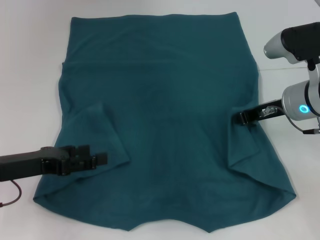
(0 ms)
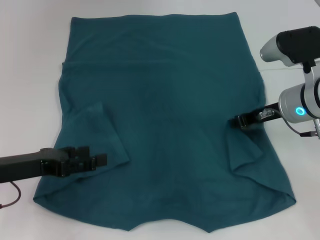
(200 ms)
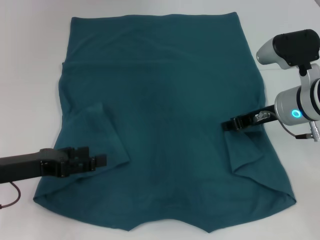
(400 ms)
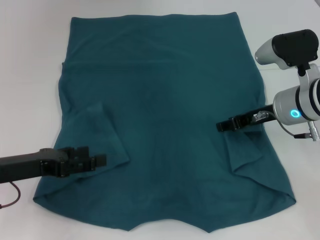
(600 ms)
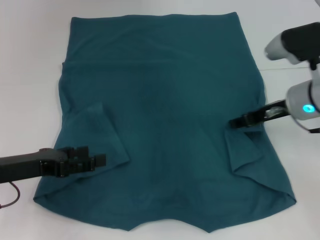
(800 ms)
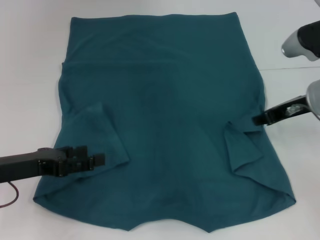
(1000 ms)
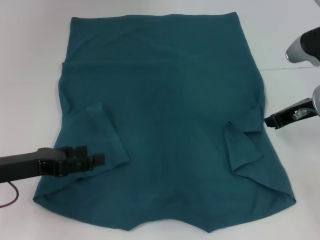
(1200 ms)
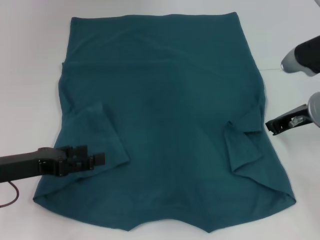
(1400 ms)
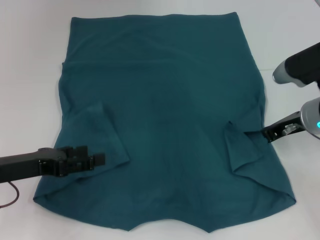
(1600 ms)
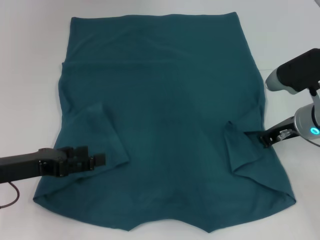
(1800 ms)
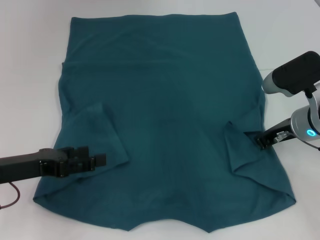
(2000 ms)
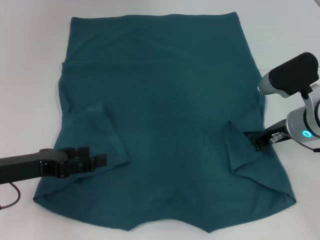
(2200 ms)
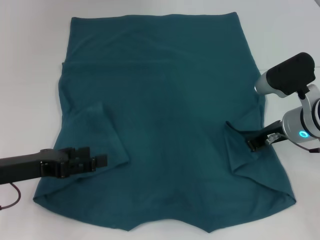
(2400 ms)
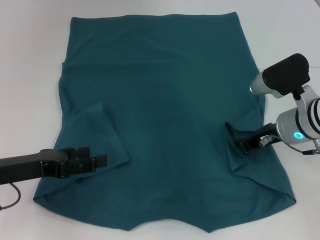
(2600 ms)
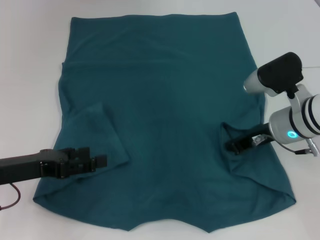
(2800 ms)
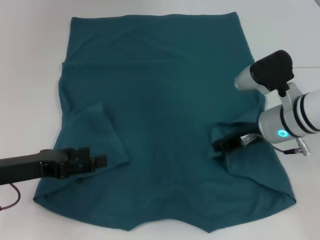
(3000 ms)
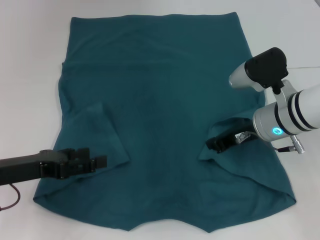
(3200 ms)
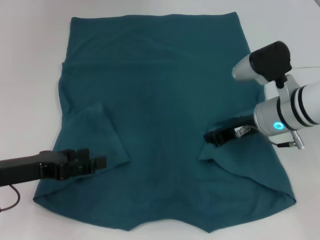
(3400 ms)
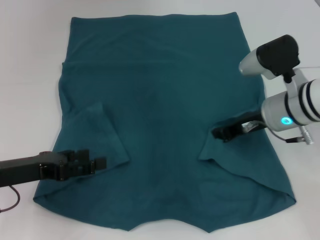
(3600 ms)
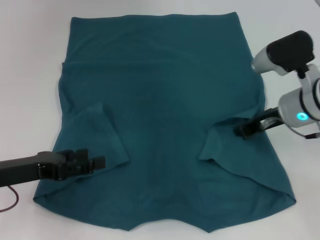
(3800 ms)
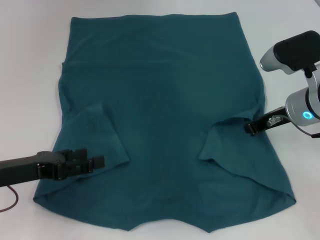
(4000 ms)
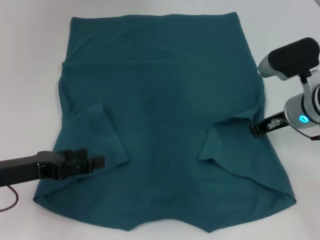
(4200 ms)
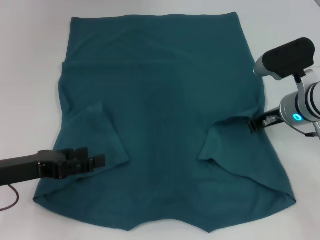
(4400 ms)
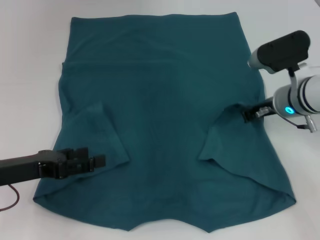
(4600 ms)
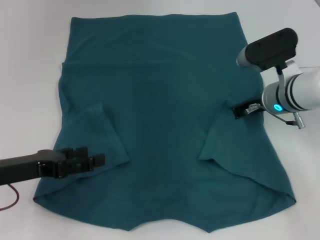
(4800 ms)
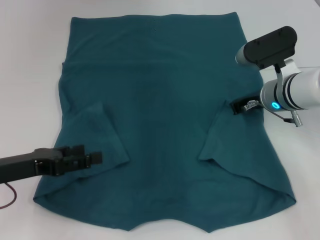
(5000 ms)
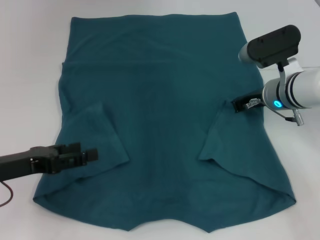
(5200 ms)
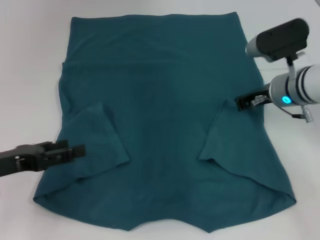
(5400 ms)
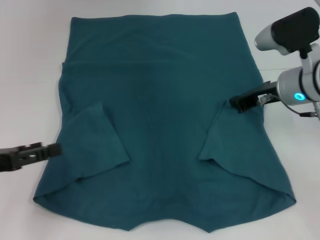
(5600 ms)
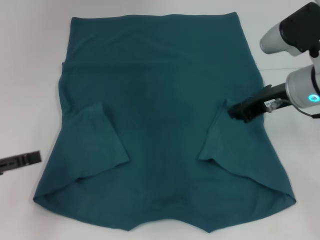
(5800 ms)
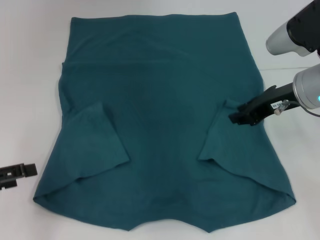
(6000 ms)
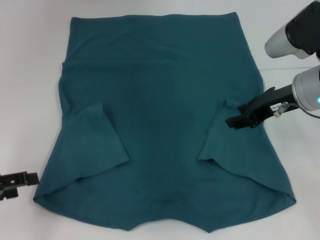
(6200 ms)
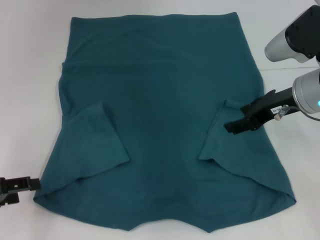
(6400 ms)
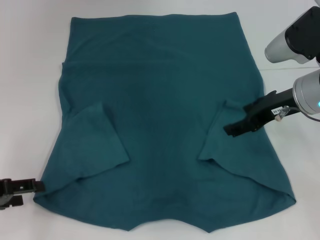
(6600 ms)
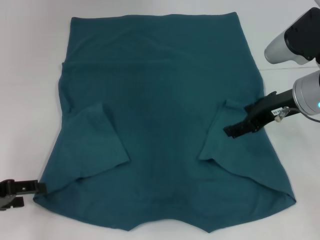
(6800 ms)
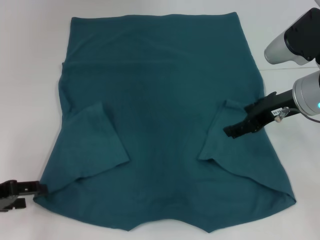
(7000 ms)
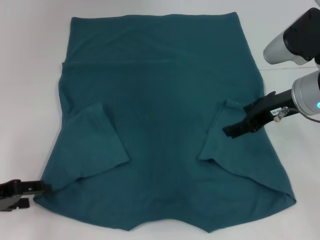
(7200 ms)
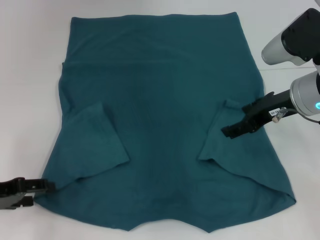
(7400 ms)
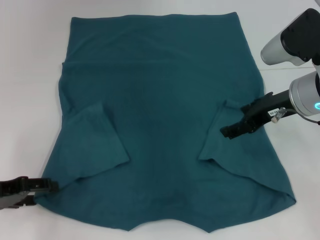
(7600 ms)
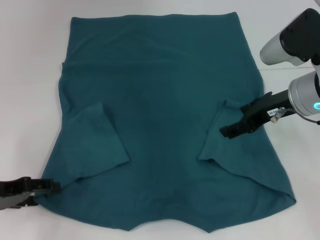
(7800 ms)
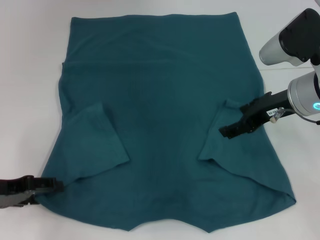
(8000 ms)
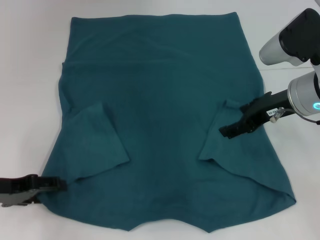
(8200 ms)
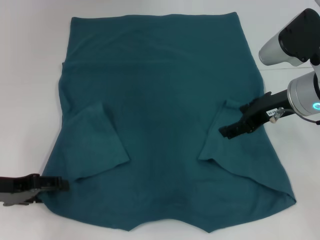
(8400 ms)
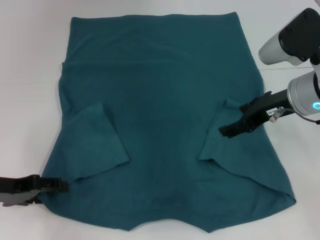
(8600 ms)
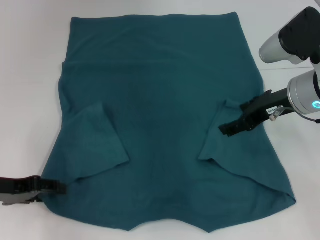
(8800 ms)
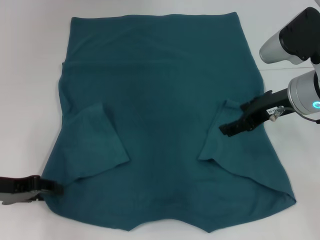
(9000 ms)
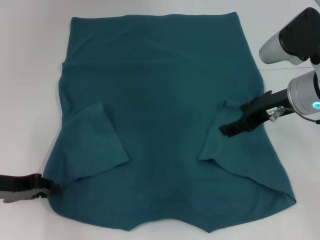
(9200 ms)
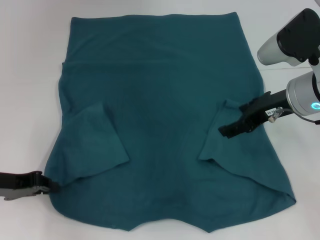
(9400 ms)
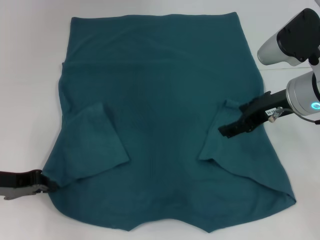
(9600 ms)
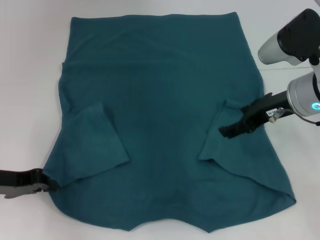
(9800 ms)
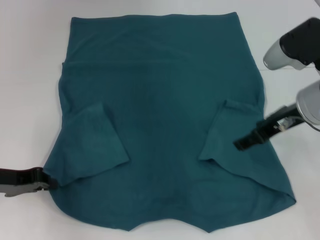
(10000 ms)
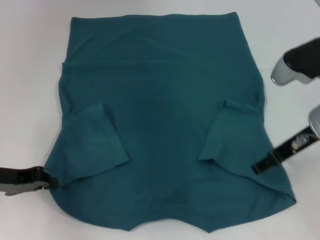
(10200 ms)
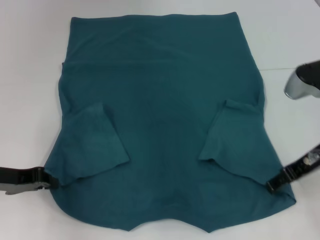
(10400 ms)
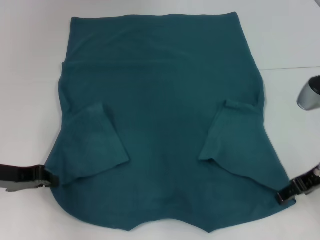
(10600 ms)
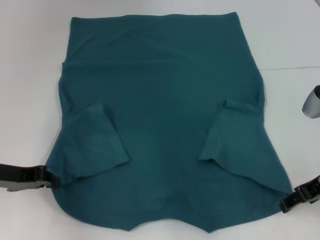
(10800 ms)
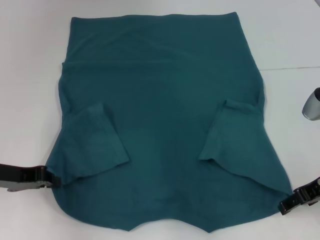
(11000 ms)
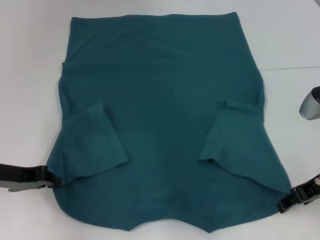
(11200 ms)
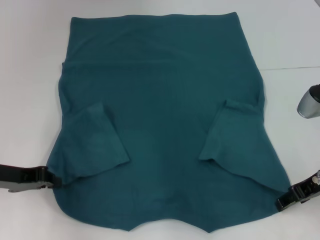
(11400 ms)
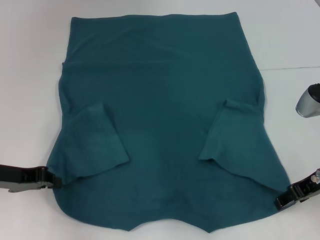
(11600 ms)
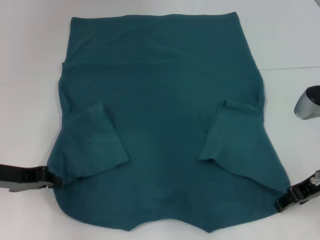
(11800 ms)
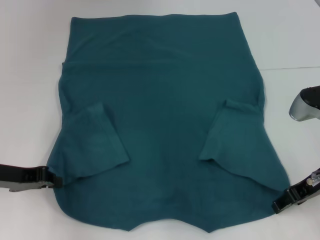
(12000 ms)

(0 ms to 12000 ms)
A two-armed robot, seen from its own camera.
Step, 0 ms - 5200 ms: Fold the bottom right sleeve to the right.
Step, 5400 ms - 9600 ms: Grab the bottom left corner with your left hand.
0 ms - 1600 ms: The right gripper opens and closes again.
1600 ms - 3000 ms: The right gripper goes about 5 cm to the left.
3000 ms - 4400 ms: The grippers make only small movements.
4400 ms - 6000 ms: The left gripper is displaced to the left by roughly 5 cm; the right gripper goes roughly 10 cm upward.
6000 ms - 7600 ms: The left gripper shifts by roughly 5 cm. Meanwhile the right gripper opens up.
7600 ms - 9000 ms: The grippers make only small movements.
9000 ms - 10400 ms: The right gripper changes place by some 5 cm, while the left gripper closes up.
10400 ms - 12000 ms: The grippers stay close to where they were, moving slightly.

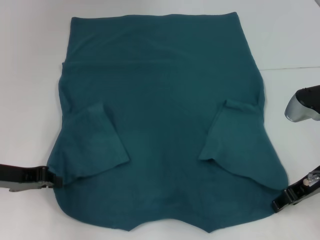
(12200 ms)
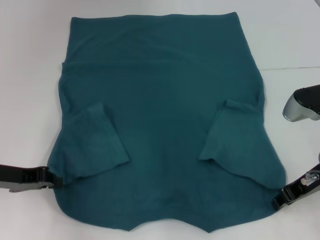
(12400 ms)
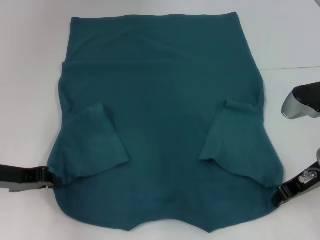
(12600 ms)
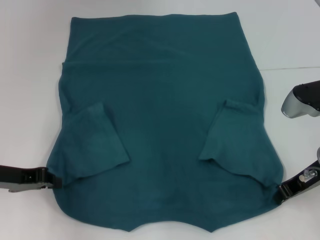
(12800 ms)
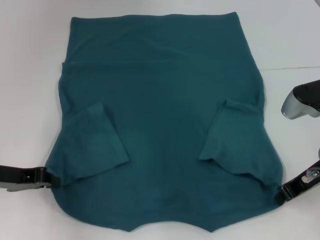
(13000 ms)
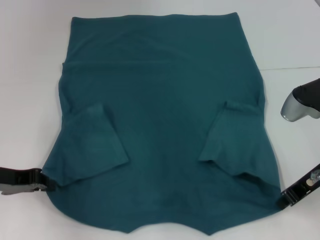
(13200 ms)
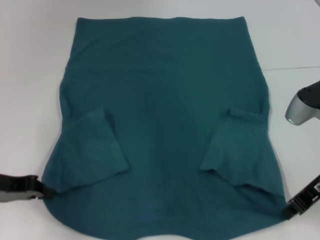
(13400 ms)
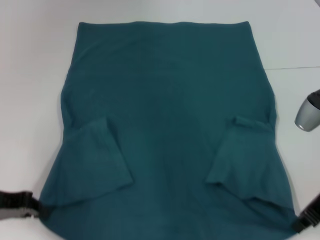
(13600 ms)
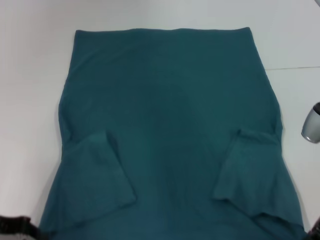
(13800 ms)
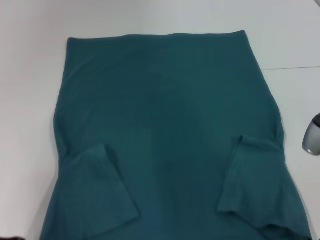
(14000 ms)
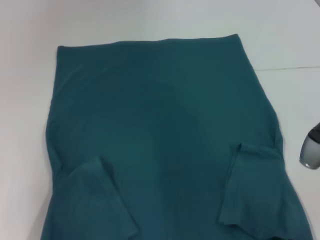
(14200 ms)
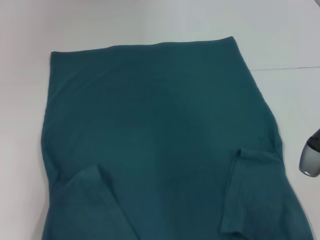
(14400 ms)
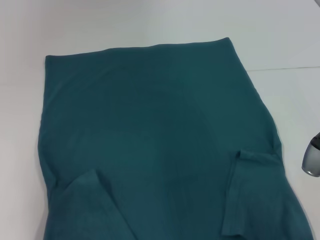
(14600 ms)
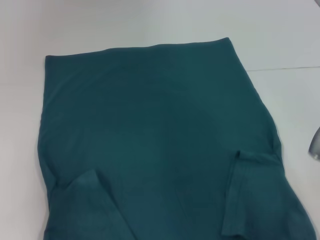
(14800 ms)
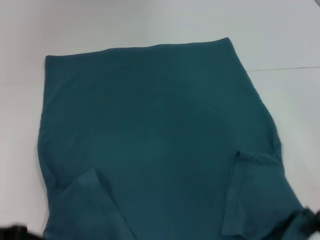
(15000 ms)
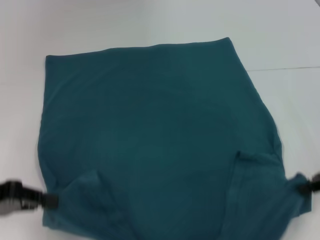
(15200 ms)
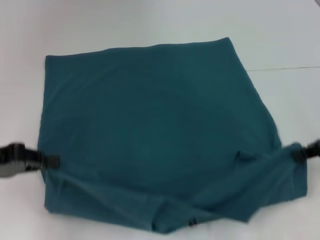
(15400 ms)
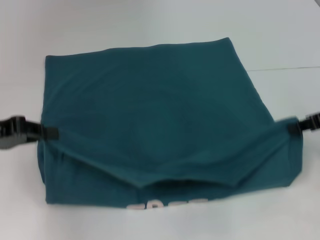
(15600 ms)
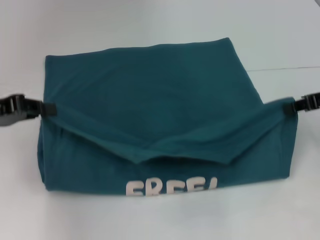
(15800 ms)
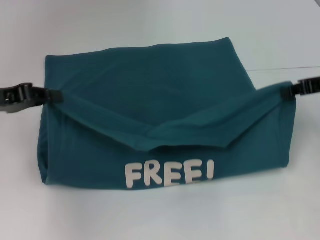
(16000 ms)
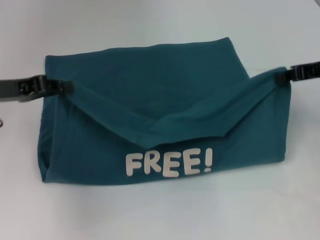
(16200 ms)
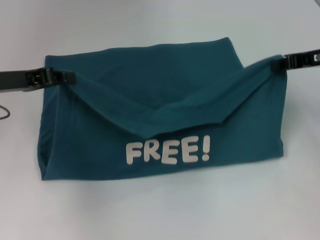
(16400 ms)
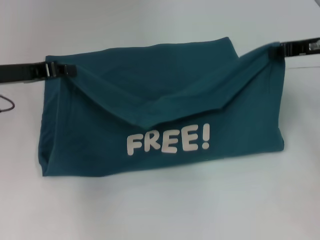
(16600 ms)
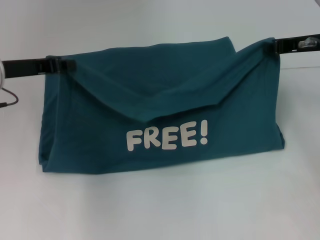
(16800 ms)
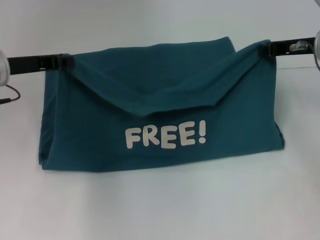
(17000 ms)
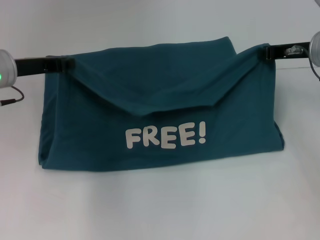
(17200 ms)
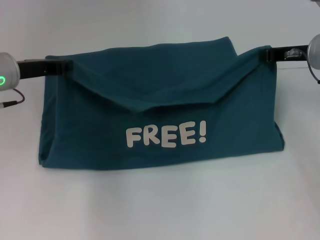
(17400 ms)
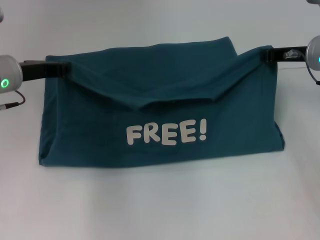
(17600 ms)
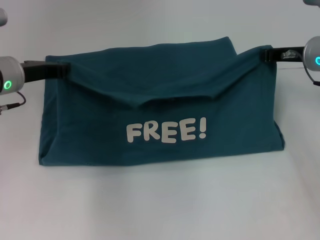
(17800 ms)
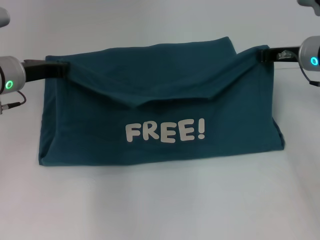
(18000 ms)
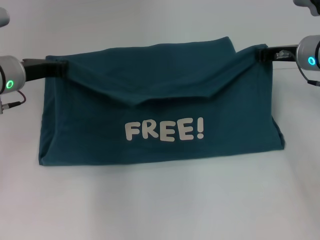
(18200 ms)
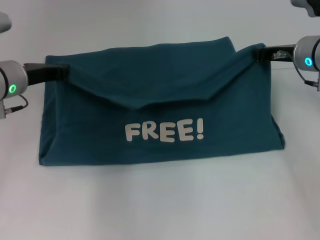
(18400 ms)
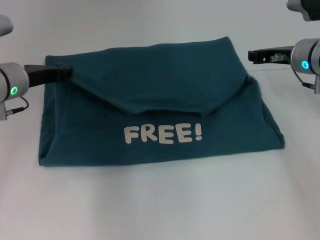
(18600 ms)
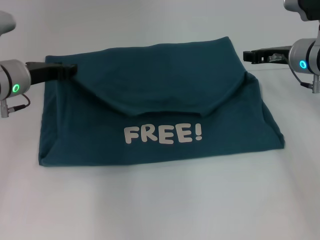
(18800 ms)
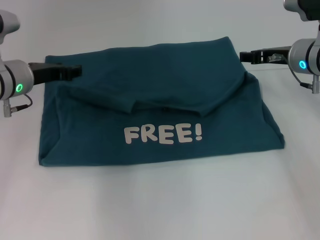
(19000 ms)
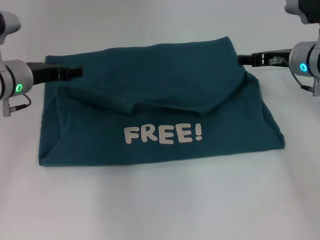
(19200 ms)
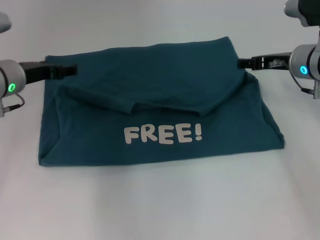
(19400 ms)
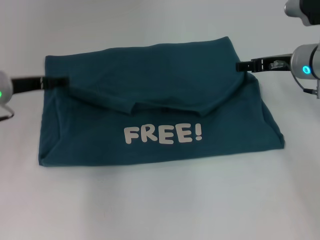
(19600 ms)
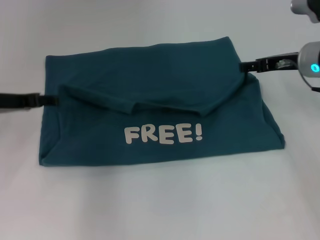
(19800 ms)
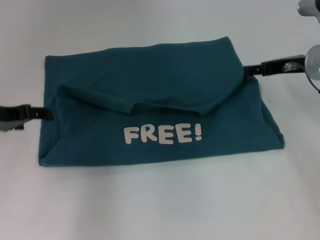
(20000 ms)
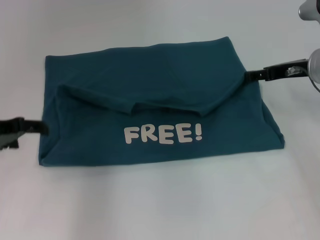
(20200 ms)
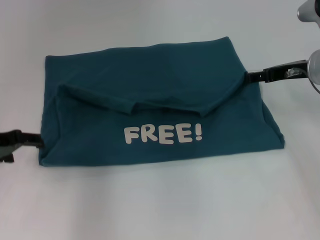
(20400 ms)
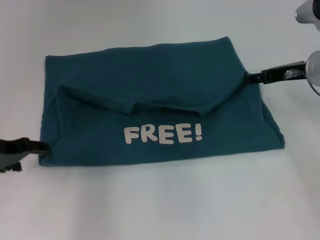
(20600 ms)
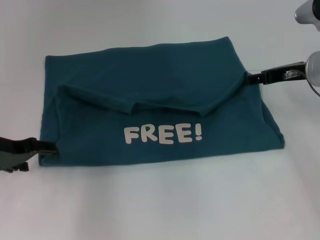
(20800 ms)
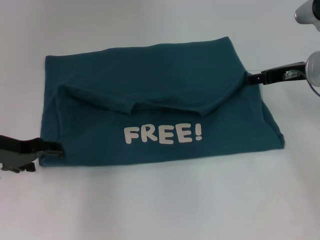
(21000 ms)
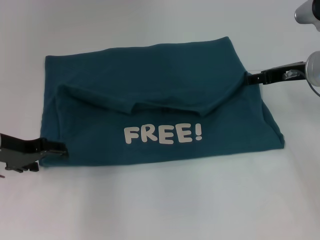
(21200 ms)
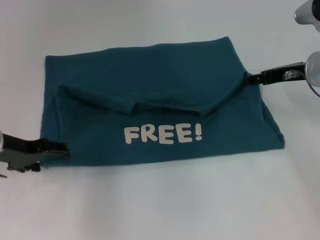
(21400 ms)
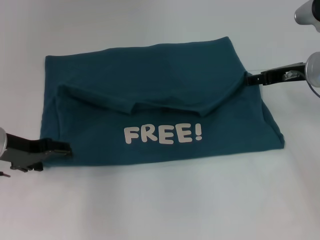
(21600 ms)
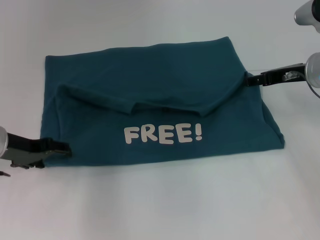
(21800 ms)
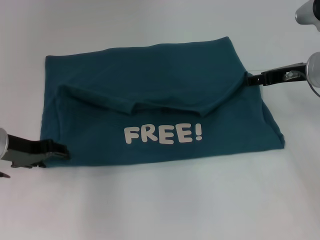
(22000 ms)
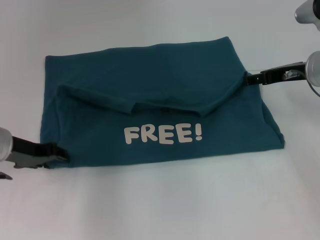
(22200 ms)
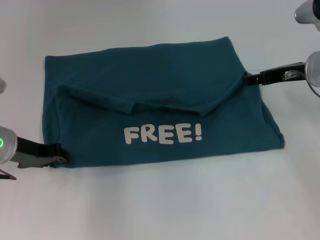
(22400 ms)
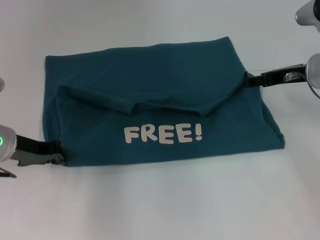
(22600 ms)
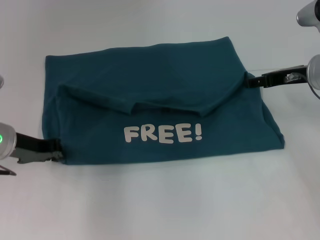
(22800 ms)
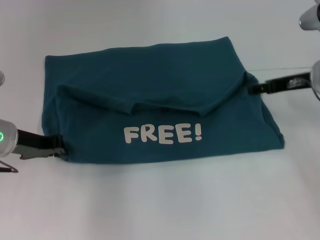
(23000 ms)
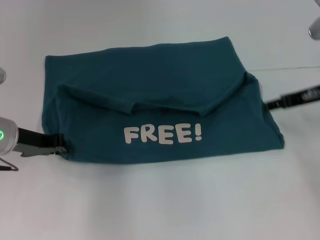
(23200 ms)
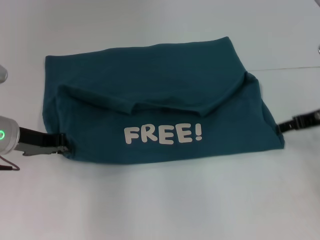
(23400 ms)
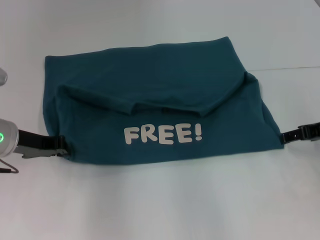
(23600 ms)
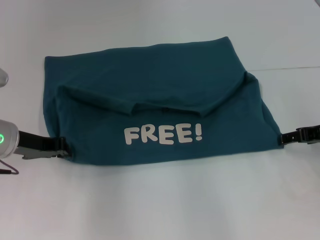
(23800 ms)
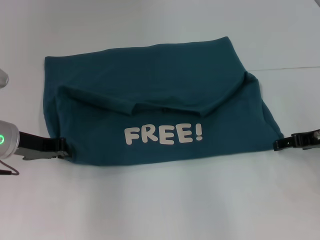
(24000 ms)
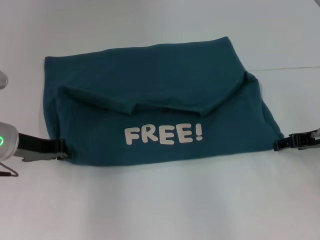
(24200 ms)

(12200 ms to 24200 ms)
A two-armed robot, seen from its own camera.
Step, 13000 ms - 19200 ms: Fold the clothes to the left.
Step, 13000 ms - 19200 ms: Fold the clothes to the right.
12200 ms - 13800 ms: The left gripper moves some 5 cm, while the right gripper closes up.
13800 ms - 15200 ms: The right gripper shifts approximately 5 cm to the right.
15200 ms - 16600 ms: Both grippers move forward, roughly 10 cm.
16600 ms - 18200 ms: The left gripper shifts by roughly 5 cm. Meanwhile the right gripper moves downward, approximately 5 cm.
18200 ms - 19800 ms: The left gripper moves approximately 5 cm, and opens its fingers. Meanwhile the right gripper opens up.
21200 ms - 22600 ms: The left gripper closes.
22600 ms - 24200 ms: The right gripper is displaced backward and downward by some 10 cm.
